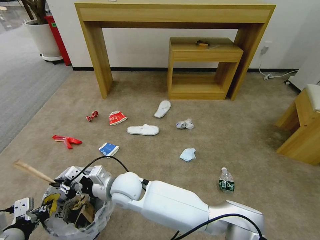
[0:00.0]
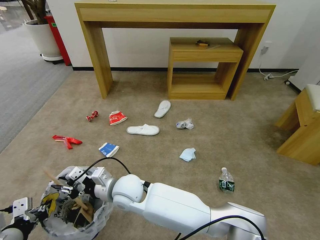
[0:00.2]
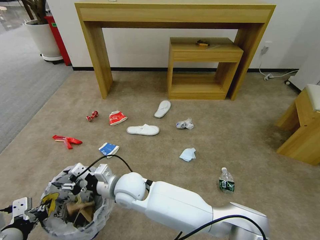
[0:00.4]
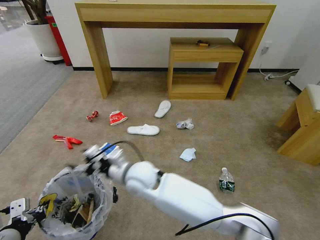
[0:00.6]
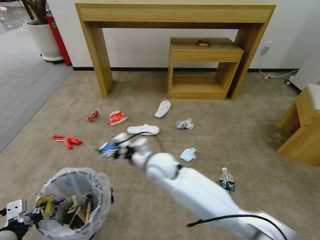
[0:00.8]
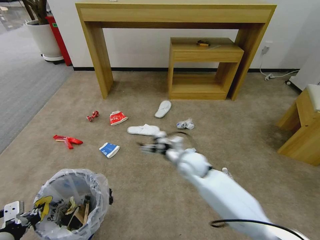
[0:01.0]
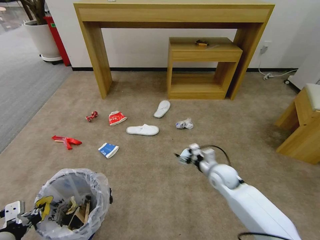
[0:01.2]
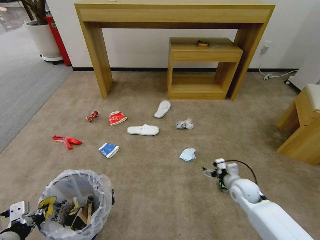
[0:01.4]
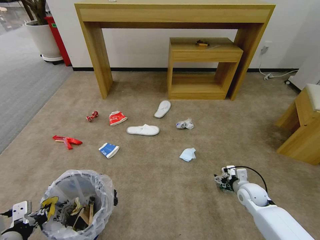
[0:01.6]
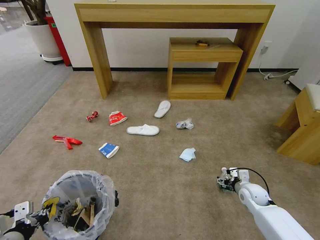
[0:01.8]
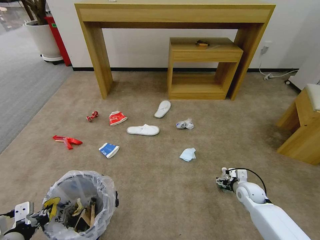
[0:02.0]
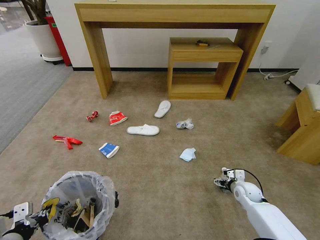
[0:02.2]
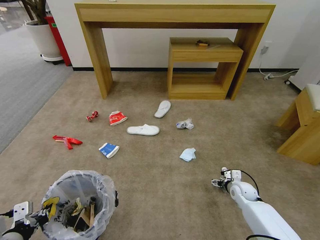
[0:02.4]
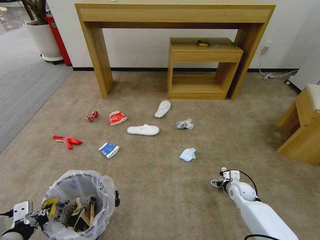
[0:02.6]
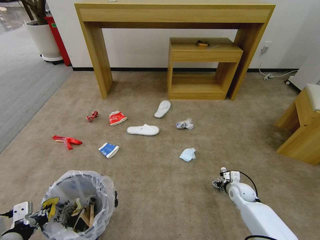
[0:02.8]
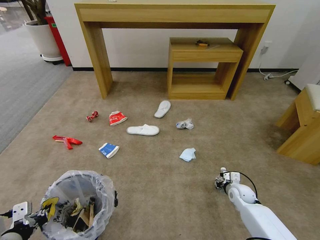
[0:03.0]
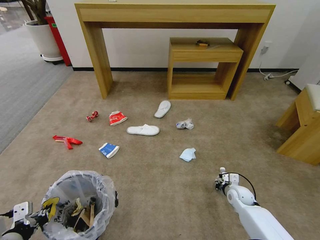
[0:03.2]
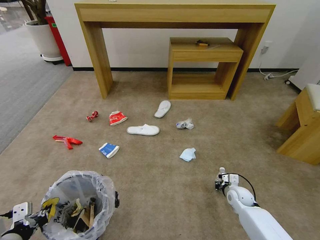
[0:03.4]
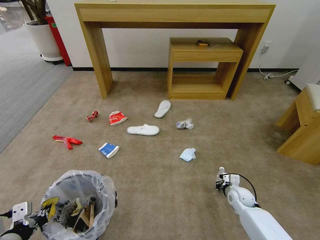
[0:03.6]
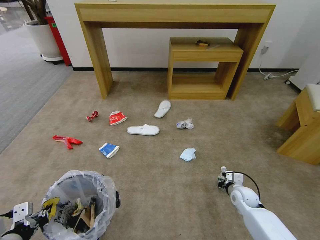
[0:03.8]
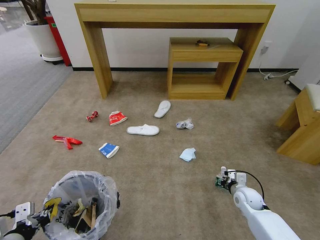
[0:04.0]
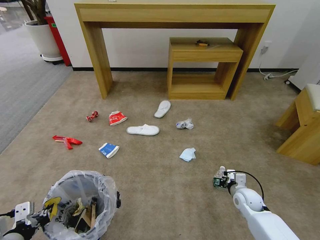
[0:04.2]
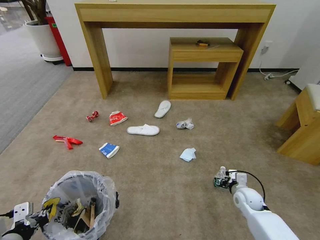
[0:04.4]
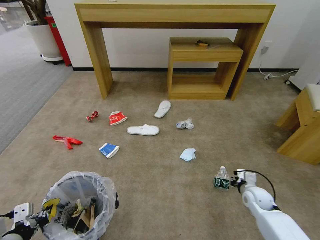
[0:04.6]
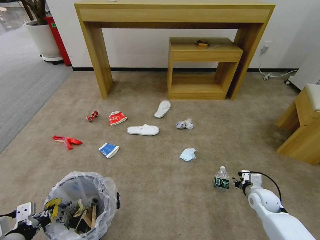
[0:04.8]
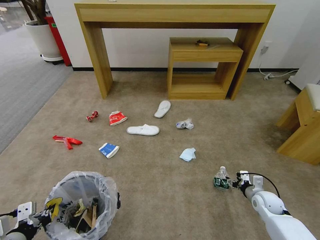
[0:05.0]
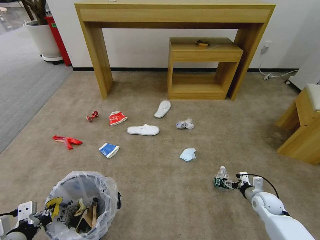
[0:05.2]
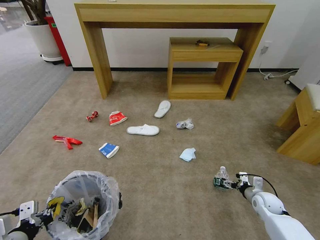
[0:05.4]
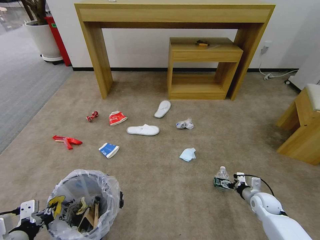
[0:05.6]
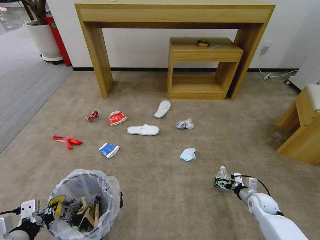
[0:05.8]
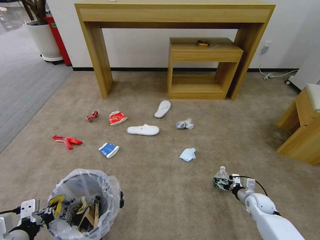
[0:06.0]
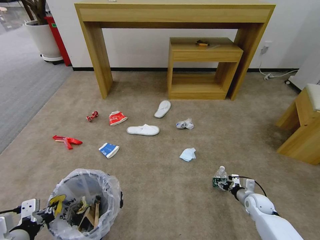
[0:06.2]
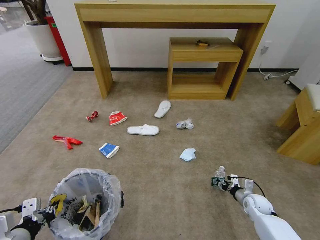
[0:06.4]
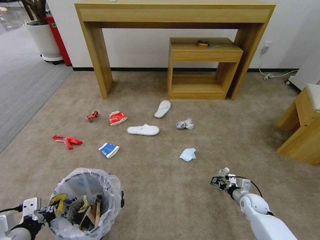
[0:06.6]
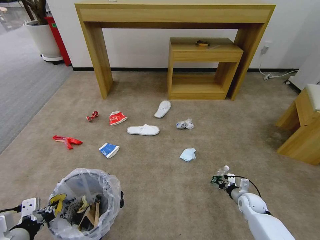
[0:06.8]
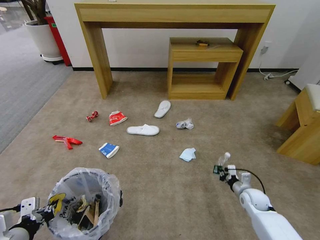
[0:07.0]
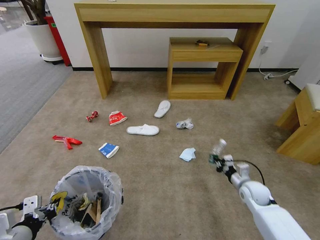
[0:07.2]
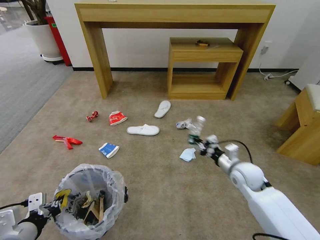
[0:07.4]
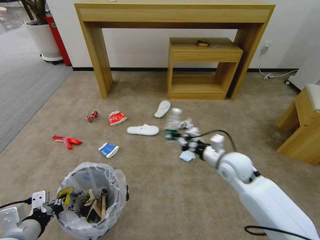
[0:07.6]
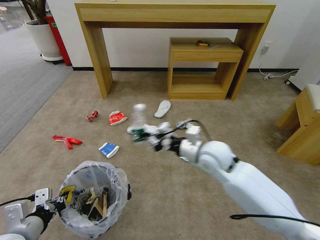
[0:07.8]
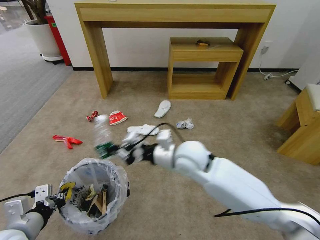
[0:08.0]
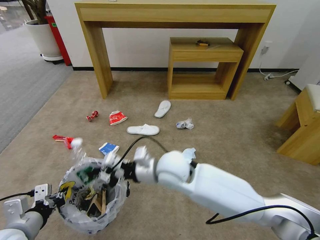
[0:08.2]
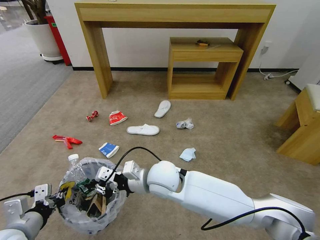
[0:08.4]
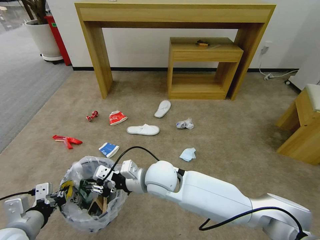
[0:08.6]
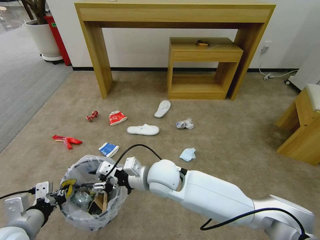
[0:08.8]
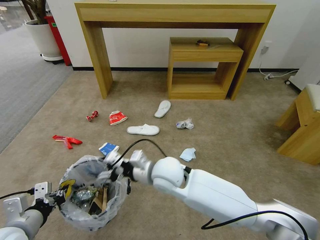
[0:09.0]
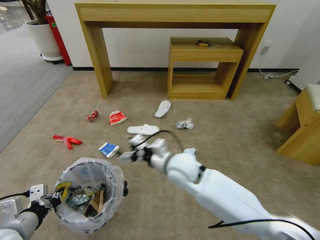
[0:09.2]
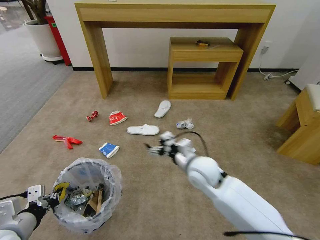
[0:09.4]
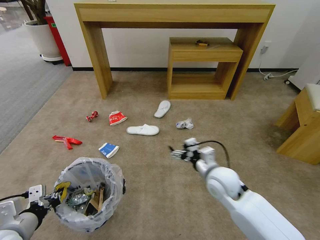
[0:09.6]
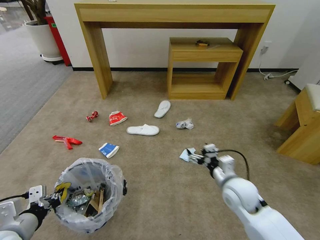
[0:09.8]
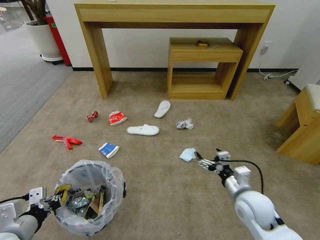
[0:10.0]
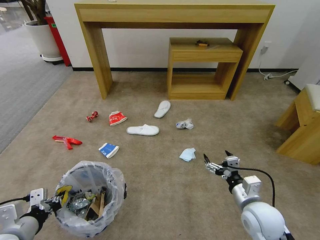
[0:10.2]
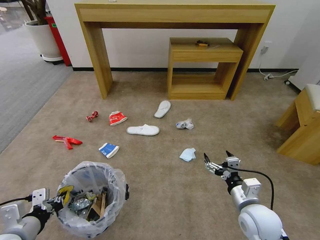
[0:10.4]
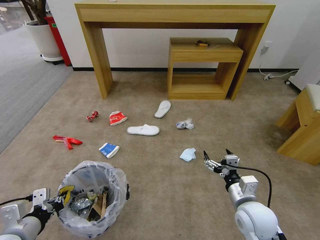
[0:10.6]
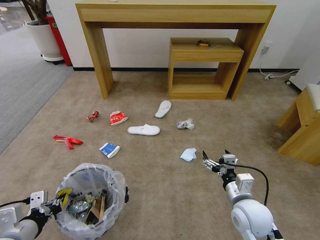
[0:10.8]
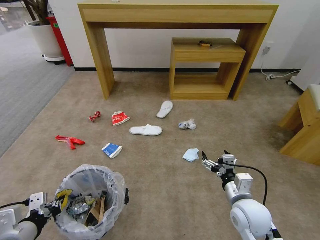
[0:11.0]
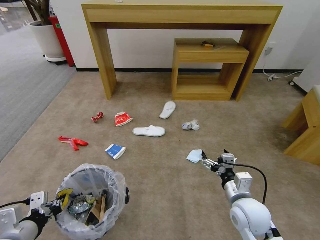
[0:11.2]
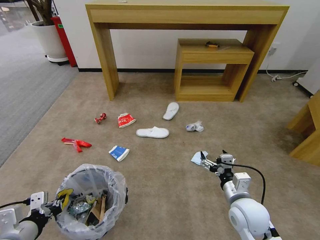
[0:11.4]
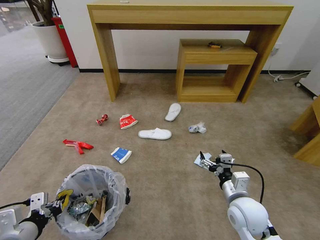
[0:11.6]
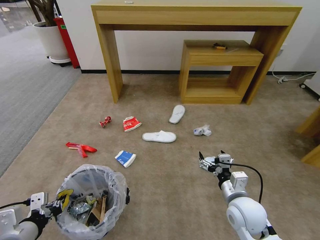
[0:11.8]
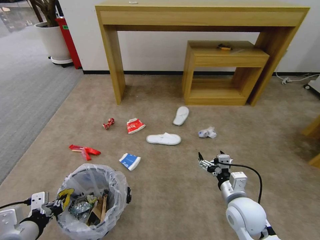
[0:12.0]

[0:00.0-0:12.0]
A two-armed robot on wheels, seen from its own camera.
Task of the whole recording: Pick up the trash bin and place the garbage on the floor into it.
0:00.0 to 0:01.6: The right gripper shifts some 50 cm to the right, and opens its fingers.
0:01.6 to 0:03.0: The right gripper shifts approximately 5 cm downward, and closes its fingers.
0:03.0 to 0:04.4: The right gripper closes up.
0:04.4 to 0:06.0: The right gripper travels to the right by approximately 5 cm, and opens up.
0:06.0 to 0:07.6: The right gripper is displaced upward and to the left by some 30 cm, and closes up.
0:07.6 to 0:09.0: The right gripper travels to the left by roughly 20 cm, and opens.
0:09.0 to 0:10.4: The right gripper goes approximately 30 cm to the right and backward, and opens up.

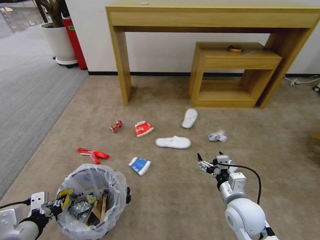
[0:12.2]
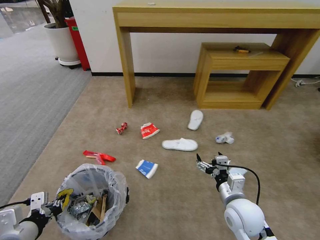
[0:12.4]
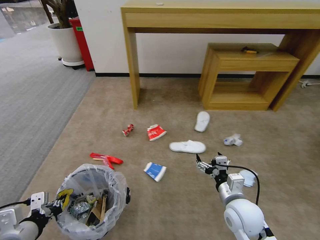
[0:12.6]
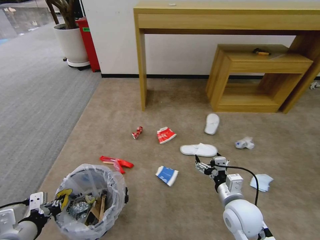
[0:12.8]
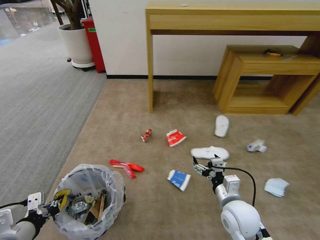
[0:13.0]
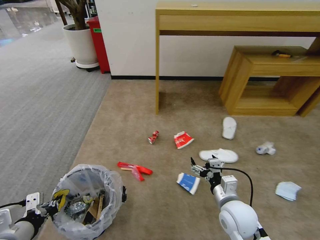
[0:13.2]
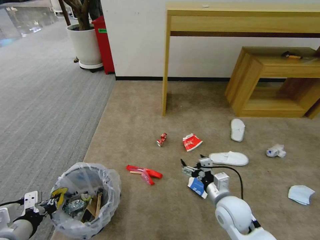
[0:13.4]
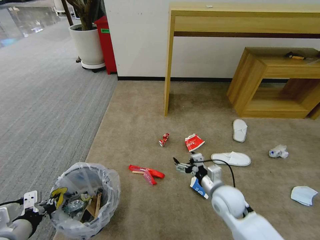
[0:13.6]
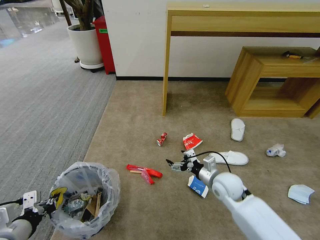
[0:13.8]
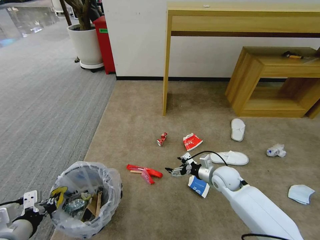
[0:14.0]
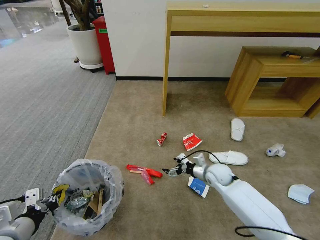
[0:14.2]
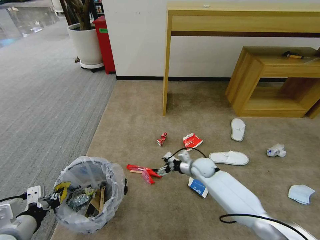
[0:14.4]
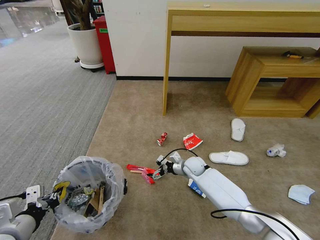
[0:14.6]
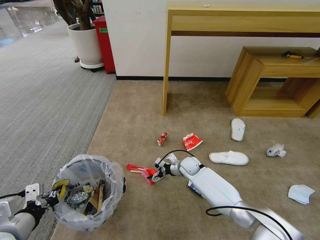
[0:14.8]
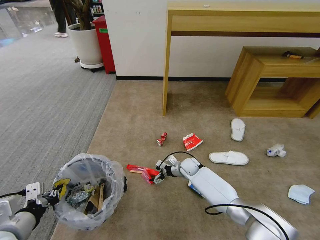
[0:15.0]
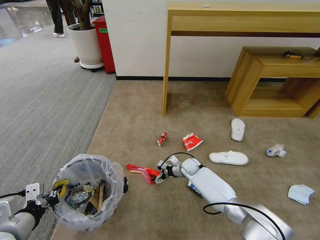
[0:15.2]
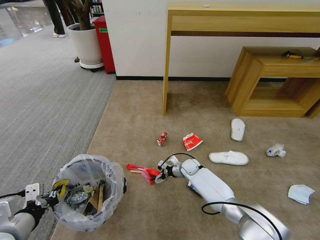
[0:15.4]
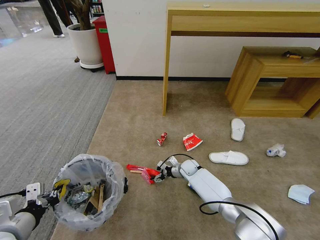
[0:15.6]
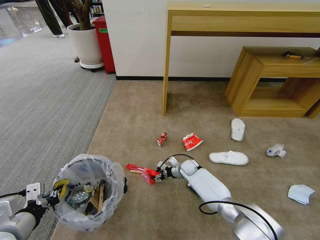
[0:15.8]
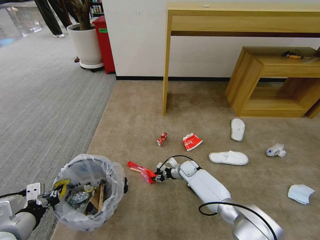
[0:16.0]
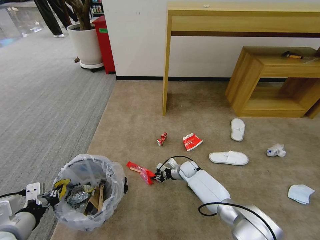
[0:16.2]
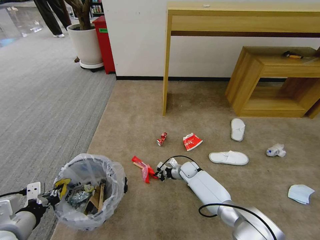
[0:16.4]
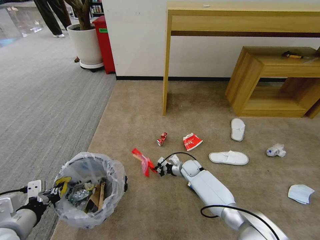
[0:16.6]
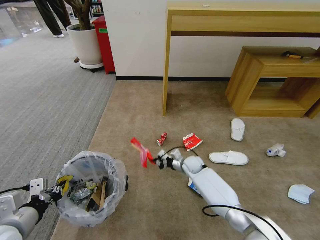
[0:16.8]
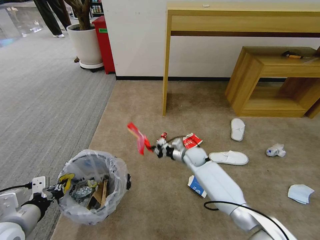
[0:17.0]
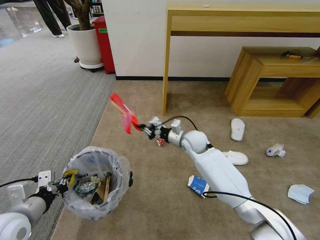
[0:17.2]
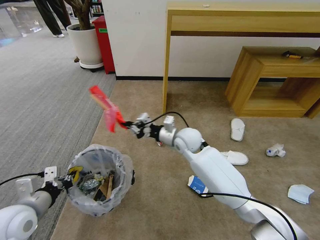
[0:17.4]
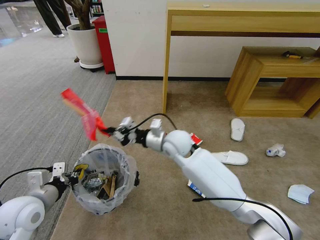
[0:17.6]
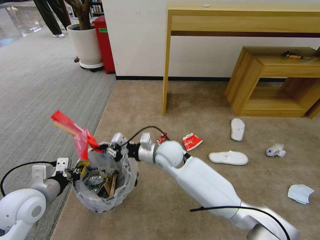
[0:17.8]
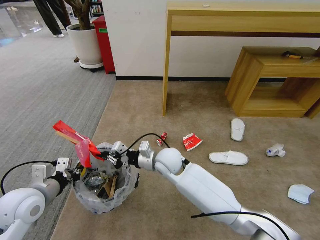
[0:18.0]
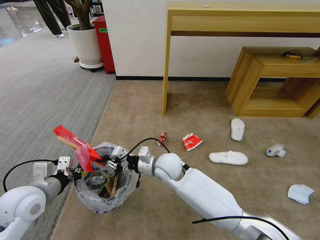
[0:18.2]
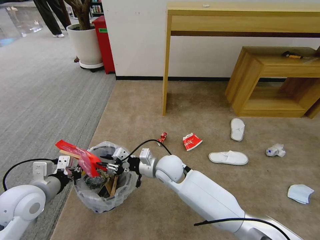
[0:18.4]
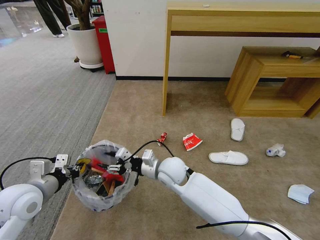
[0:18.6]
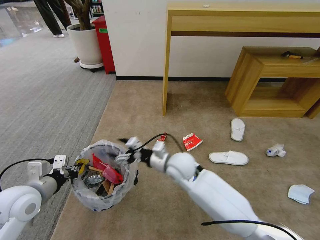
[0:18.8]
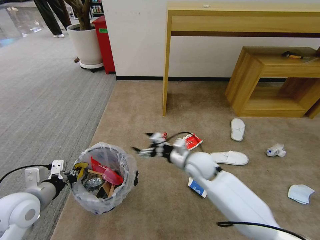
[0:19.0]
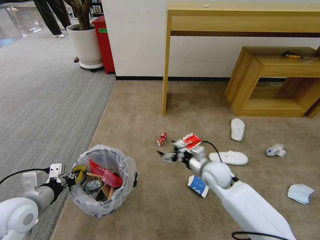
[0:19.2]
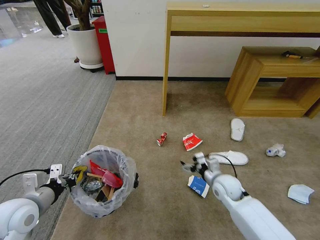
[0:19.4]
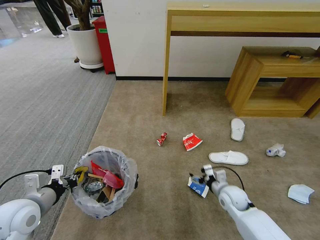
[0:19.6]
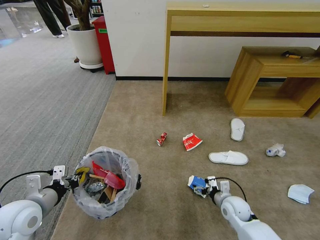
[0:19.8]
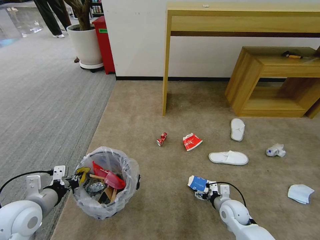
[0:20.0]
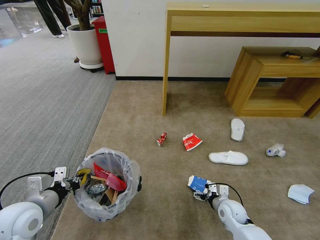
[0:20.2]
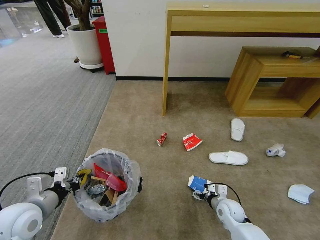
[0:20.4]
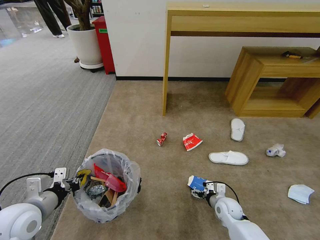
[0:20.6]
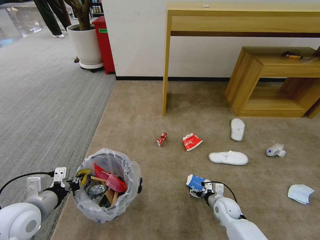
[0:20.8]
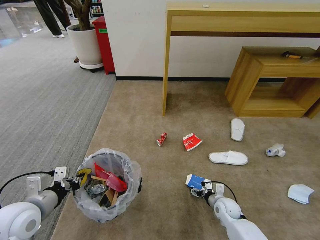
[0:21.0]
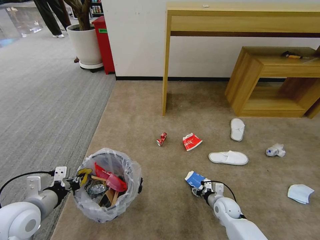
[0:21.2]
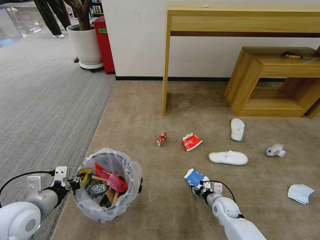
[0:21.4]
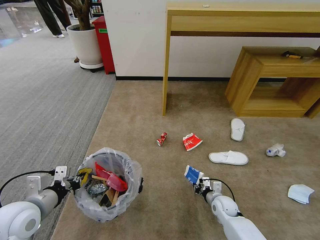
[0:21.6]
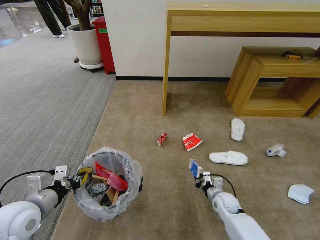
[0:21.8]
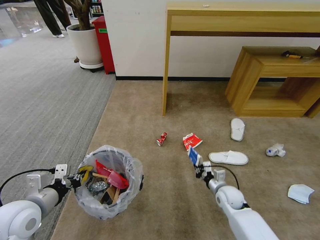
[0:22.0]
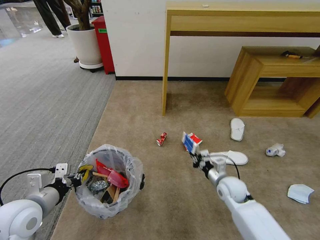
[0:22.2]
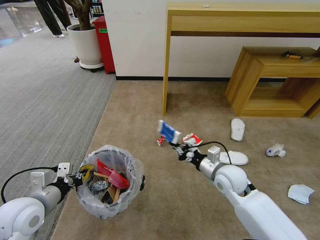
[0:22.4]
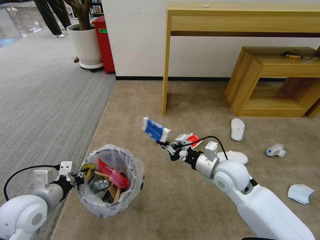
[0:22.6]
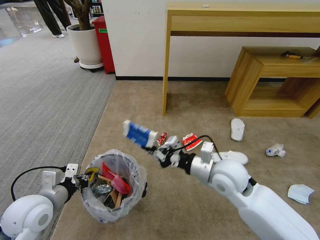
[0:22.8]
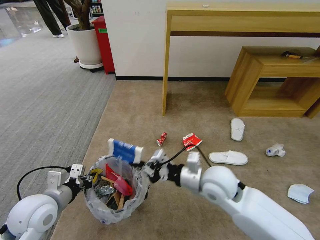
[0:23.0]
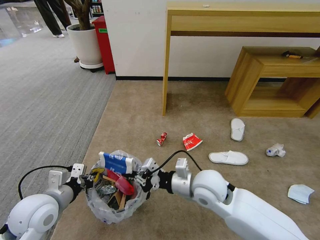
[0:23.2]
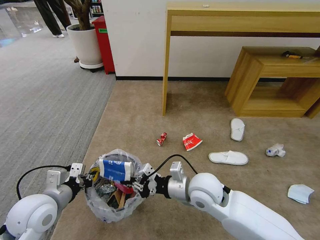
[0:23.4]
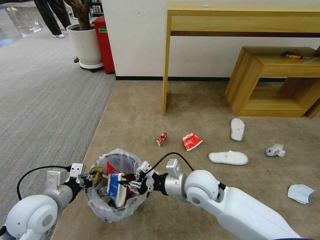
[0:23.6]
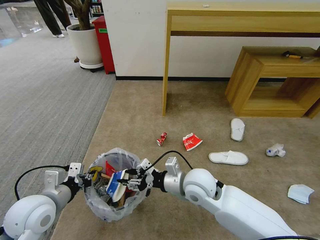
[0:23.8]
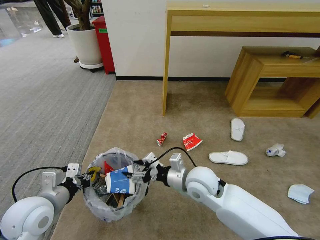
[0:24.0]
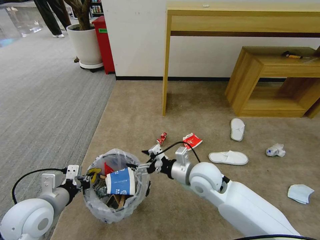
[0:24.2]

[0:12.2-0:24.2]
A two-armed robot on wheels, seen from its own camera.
Task of the whole recording: Pick up the trash bin and place the garbage on the floor into it.
0:12.2 to 0:13.8: The right gripper moves forward, roughly 10 cm.
0:13.8 to 0:15.2: The right gripper goes approximately 20 cm forward, downward and to the left.
0:15.2 to 0:16.6: The right gripper closes.
0:16.6 to 0:18.2: The right gripper shifts about 25 cm upward, to the left and backward, while the left gripper is displaced forward by about 10 cm.
0:18.2 to 0:19.8: The right gripper shifts roughly 30 cm to the right and downward, and opens up.
0:19.8 to 0:21.2: The right gripper goes about 5 cm downward, and closes its fingers.
0:21.2 to 0:22.6: The right gripper travels upward by approximately 25 cm, and closes up.
0:22.6 to 0:24.2: The right gripper is displaced to the left by approximately 5 cm, and opens.
